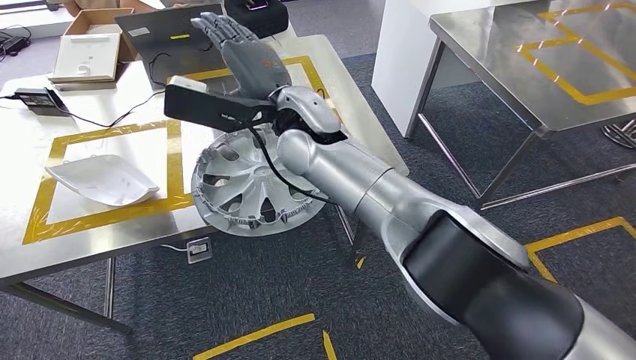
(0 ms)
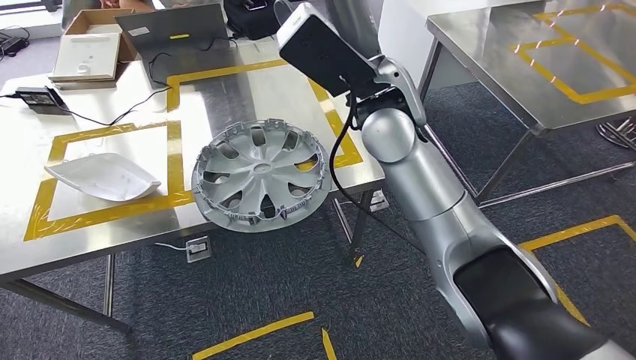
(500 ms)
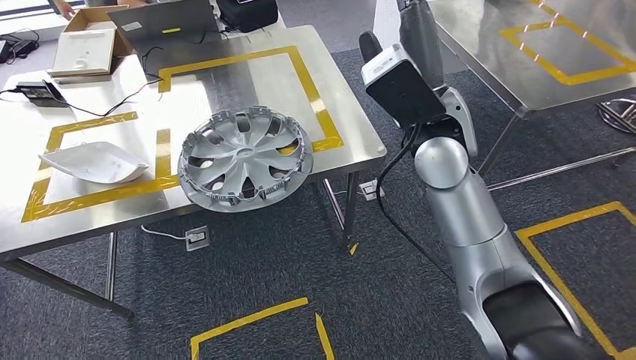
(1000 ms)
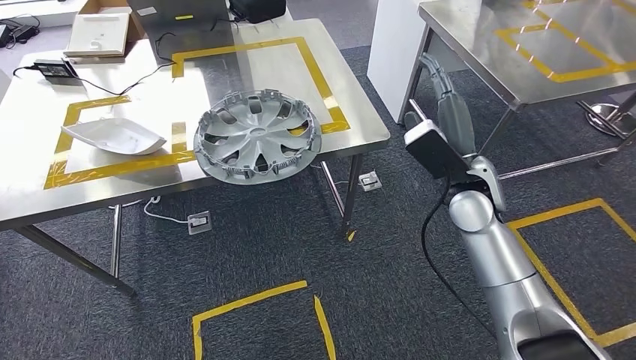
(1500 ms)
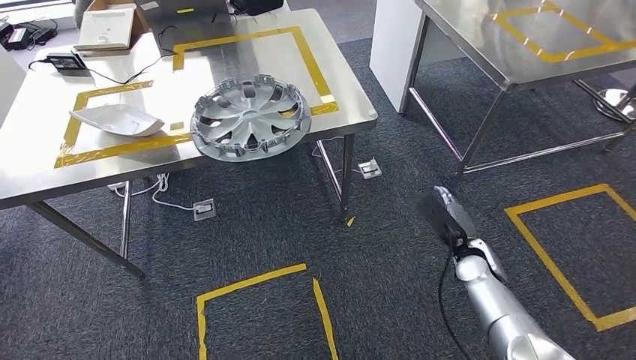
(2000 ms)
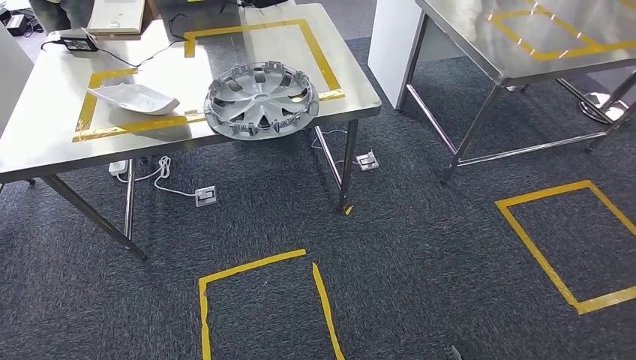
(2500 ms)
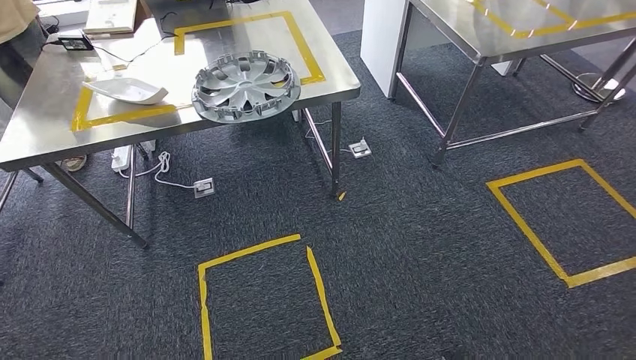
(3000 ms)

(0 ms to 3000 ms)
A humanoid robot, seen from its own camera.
Step, 500 ms - 3000 ms: Return to the initial position at the workbench.
